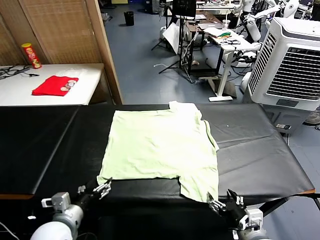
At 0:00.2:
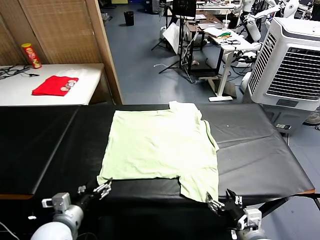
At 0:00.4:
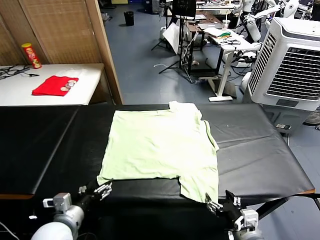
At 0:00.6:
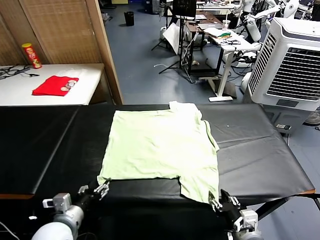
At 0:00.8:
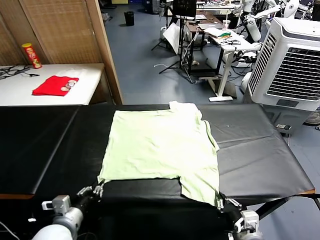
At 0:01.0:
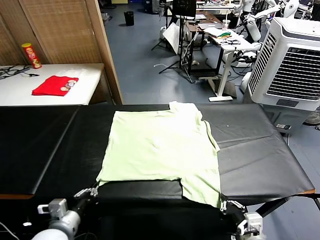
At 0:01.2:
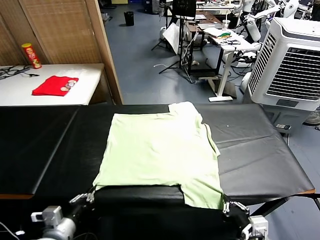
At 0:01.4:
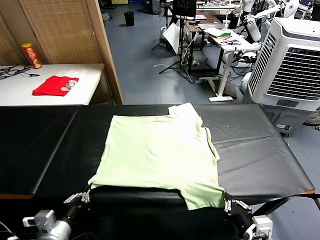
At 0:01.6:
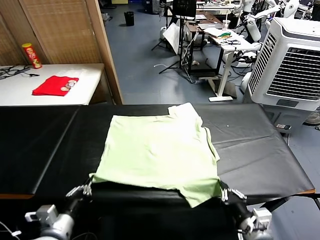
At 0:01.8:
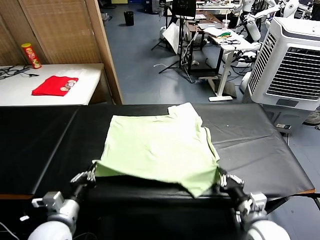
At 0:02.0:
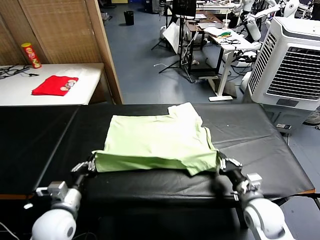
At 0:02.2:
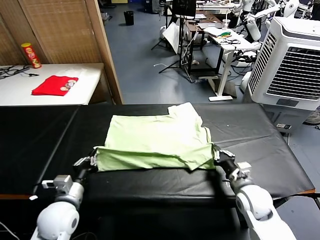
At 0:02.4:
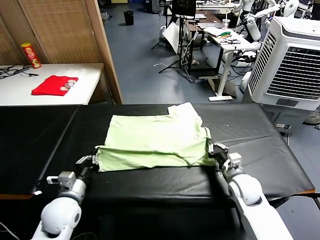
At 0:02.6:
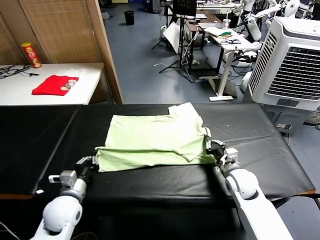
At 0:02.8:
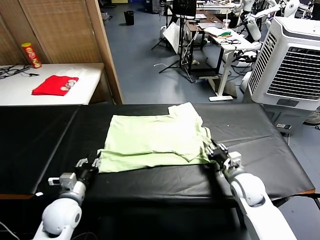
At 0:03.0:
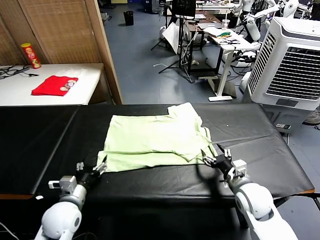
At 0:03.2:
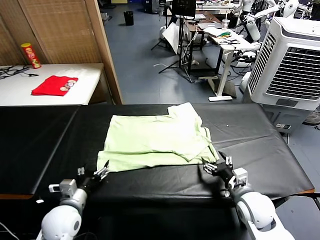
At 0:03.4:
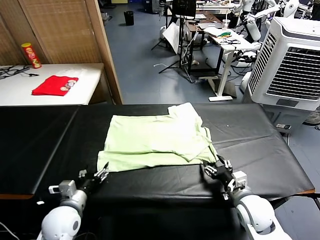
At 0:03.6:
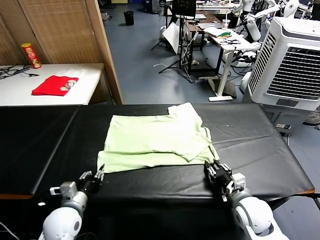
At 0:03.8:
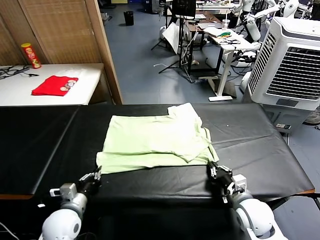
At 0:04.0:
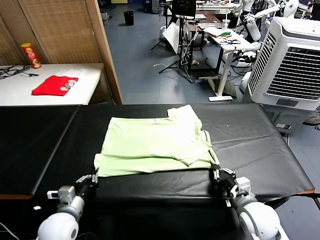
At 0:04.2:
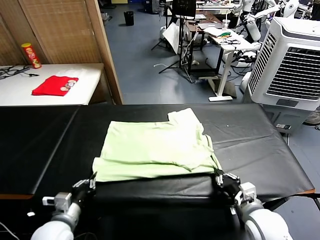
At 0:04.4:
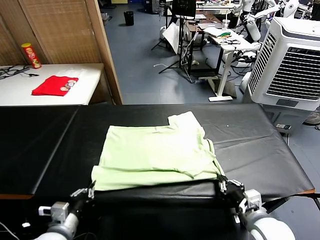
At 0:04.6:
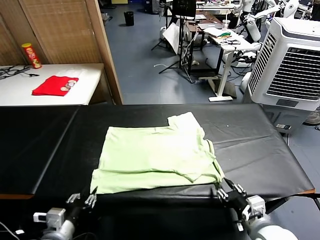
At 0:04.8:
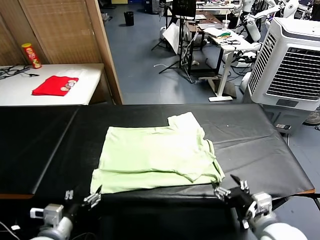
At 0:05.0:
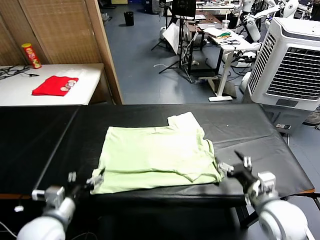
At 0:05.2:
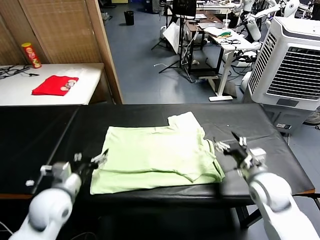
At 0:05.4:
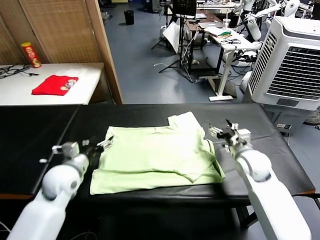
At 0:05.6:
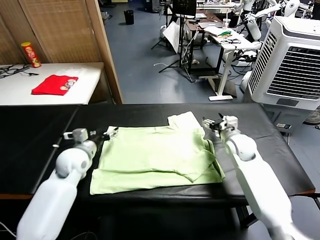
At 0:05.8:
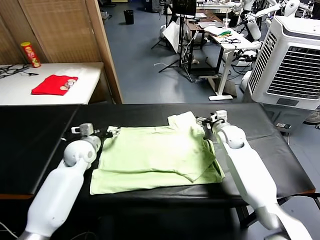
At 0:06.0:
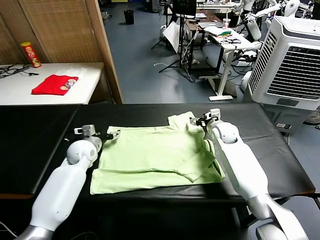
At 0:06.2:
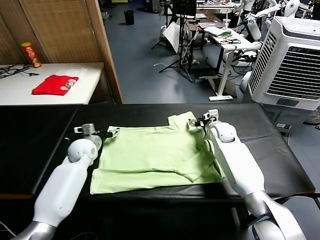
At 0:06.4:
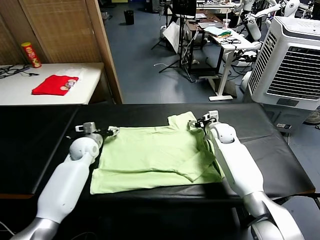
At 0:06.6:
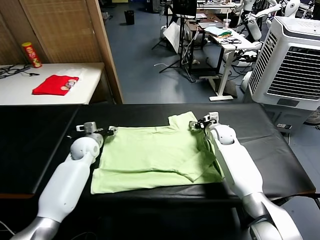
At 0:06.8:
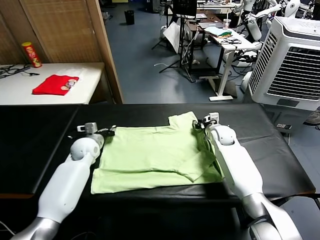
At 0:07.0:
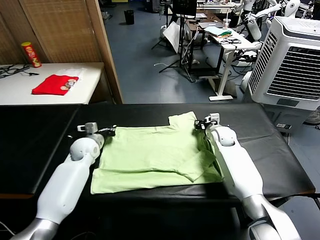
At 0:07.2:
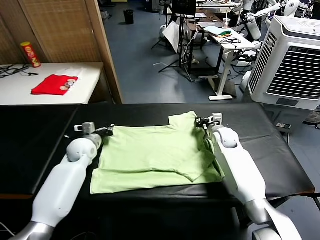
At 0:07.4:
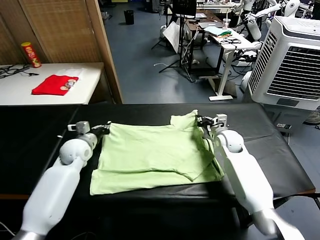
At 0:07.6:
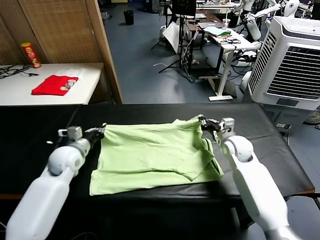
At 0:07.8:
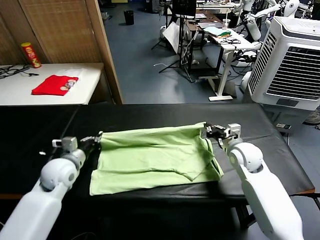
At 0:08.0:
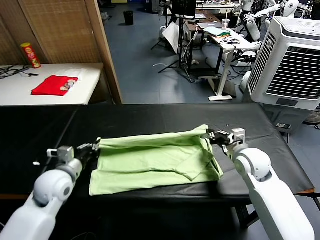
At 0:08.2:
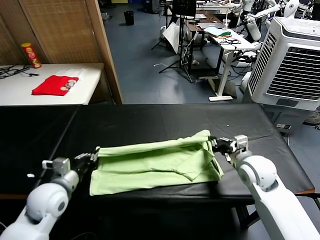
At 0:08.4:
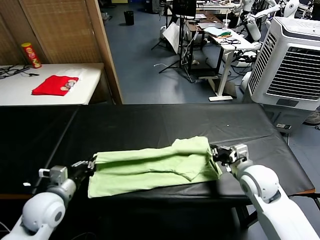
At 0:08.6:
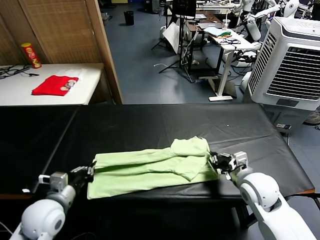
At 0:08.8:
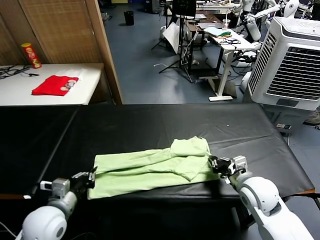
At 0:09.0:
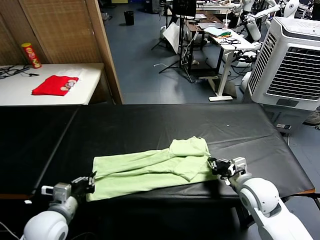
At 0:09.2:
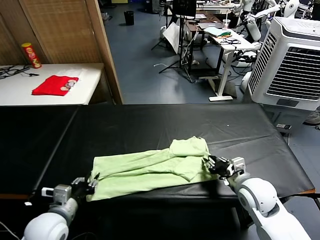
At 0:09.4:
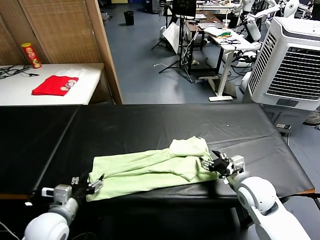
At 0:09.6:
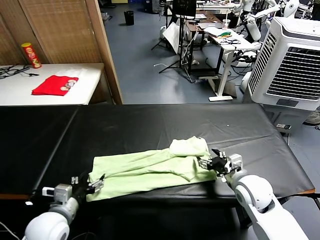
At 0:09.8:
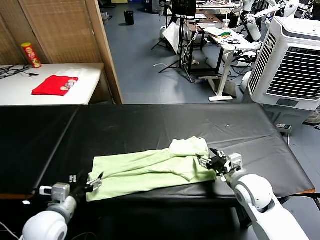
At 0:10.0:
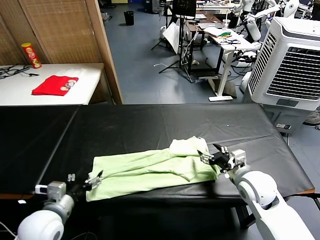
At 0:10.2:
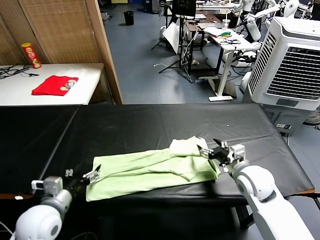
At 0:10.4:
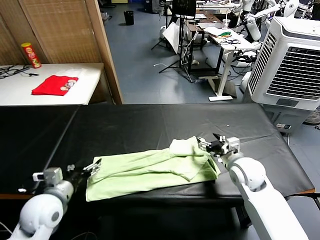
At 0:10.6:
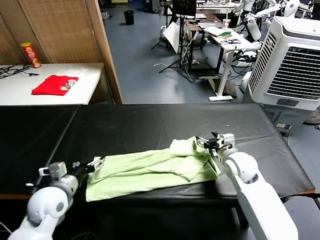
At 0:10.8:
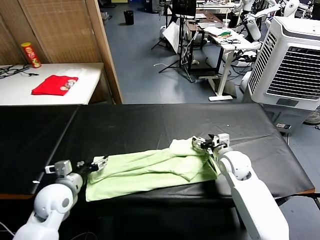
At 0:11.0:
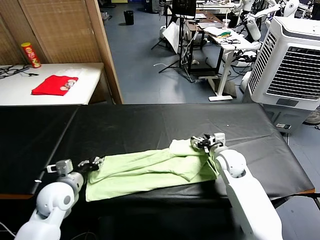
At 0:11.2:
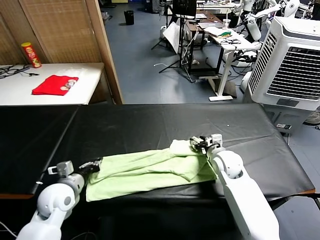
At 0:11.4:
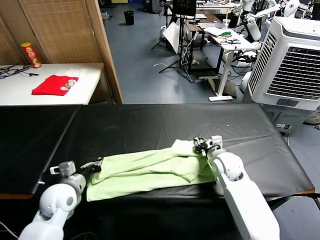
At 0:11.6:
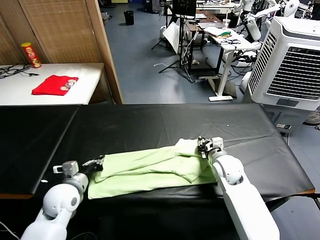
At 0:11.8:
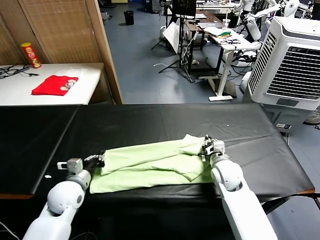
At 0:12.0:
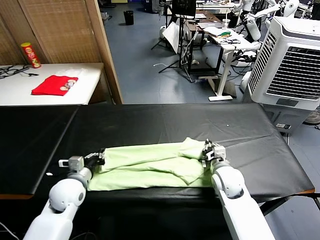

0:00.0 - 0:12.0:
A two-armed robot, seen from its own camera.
Task of the whole recording: fold and organize the clothes.
Step, 0:00.0 - 0:01.0: use both grippers simultaneously to clamp the lower edge of the clothing fabric.
Step, 0:01.2 - 0:02.8: use both grippers to drag the lower edge of the fabric forward and fold it over the upper edge.
Step, 0:03.0 - 0:04.6: Drag the clothes downward with both gripper.
Step, 0:04.8 - 0:06.8: use both grippers simultaneously to clamp the upper edge of the clothing fabric.
Step, 0:07.0 - 0:09.8: use both grippers to drag the upper edge of the fabric backward and fold it over the lower edge.
0:01.6 - 0:03.0: The left gripper is displaced forward by approximately 5 cm, and opens up; the right gripper goes forward and returns, some 15 cm each way, and opens up.
0:03.0 - 0:04.4: The right gripper heads backward and upward, covering approximately 10 cm, and closes, then reopens; the left gripper is displaced backward by about 10 cm, and closes its fingers.
0:04.4 - 0:06.0: The two grippers go approximately 35 cm forward. The left gripper opens.
0:06.0 - 0:07.6: Both grippers travel together backward, roughly 10 cm. The right gripper closes, while the left gripper closes up.
0:07.6 - 0:09.0: Both grippers move backward, about 15 cm.
0:09.0 - 0:10.4: The right gripper heads forward, covering about 10 cm, and opens its fingers. Meanwhile the left gripper shifts roughly 5 cm forward, and opens up.
0:10.4 - 0:12.0: The right gripper moves about 5 cm, and closes. Meanwhile the left gripper goes roughly 5 cm forward, and closes its fingers.

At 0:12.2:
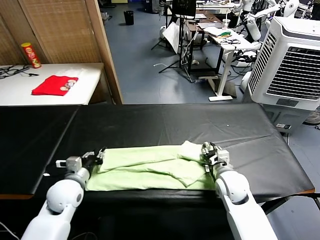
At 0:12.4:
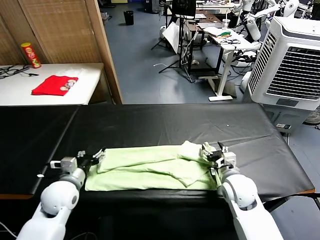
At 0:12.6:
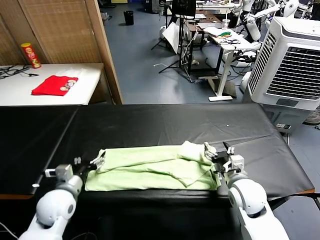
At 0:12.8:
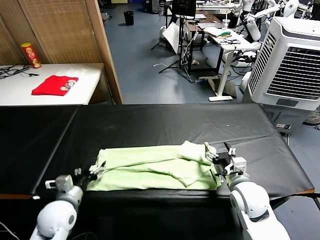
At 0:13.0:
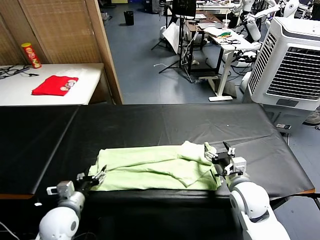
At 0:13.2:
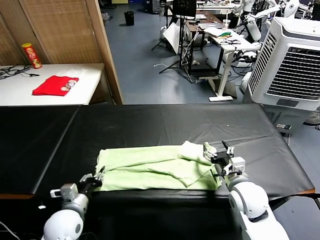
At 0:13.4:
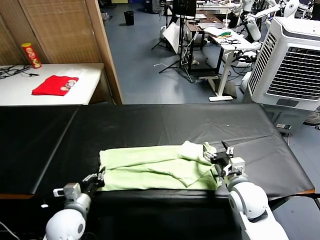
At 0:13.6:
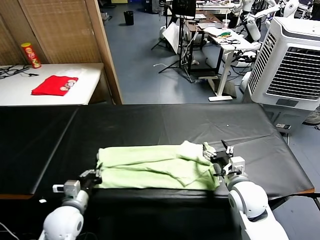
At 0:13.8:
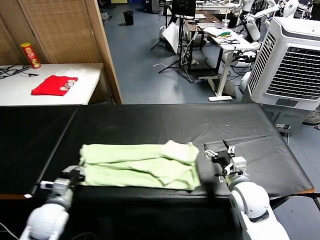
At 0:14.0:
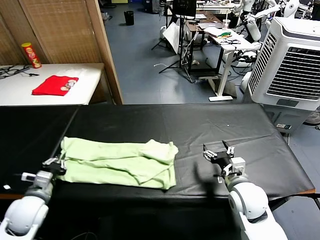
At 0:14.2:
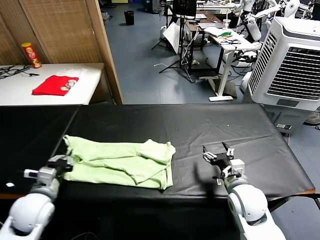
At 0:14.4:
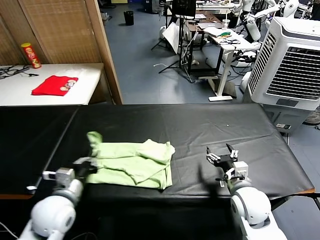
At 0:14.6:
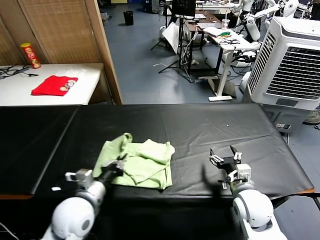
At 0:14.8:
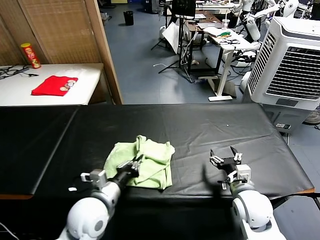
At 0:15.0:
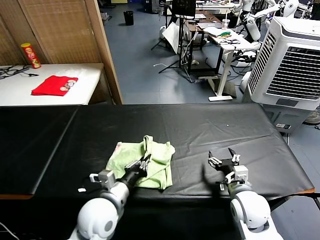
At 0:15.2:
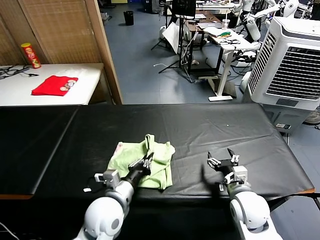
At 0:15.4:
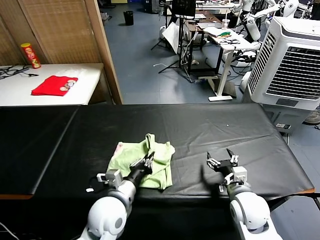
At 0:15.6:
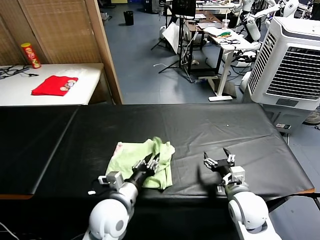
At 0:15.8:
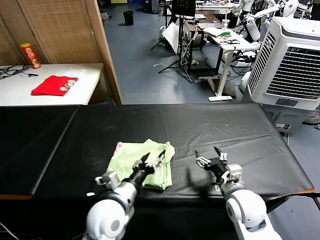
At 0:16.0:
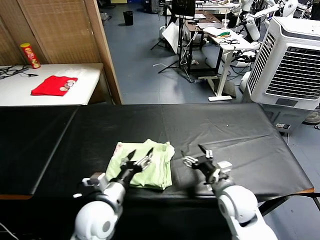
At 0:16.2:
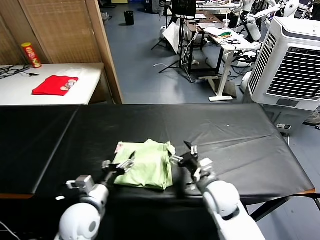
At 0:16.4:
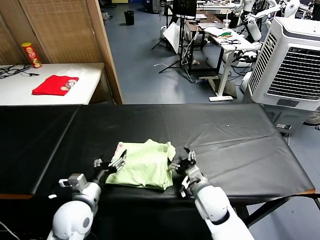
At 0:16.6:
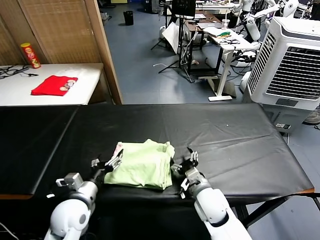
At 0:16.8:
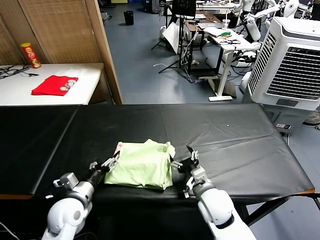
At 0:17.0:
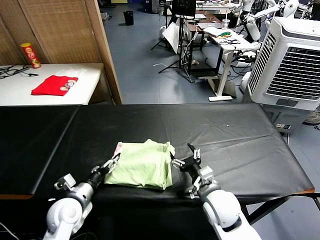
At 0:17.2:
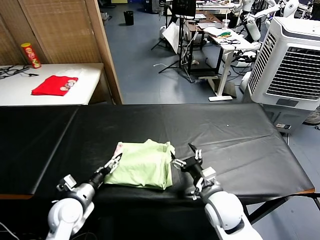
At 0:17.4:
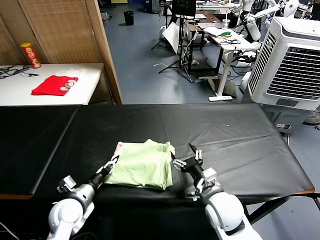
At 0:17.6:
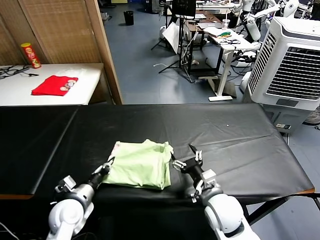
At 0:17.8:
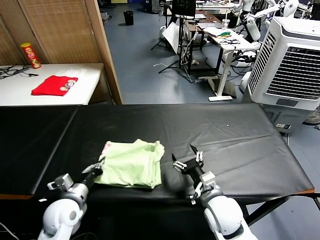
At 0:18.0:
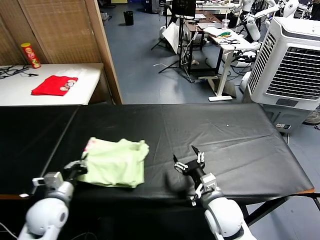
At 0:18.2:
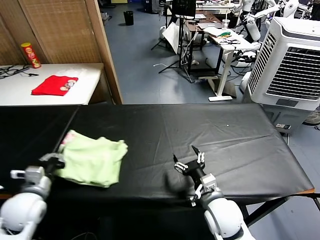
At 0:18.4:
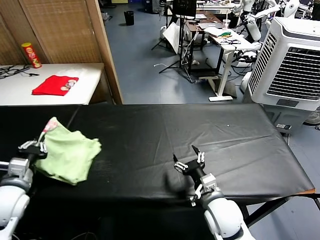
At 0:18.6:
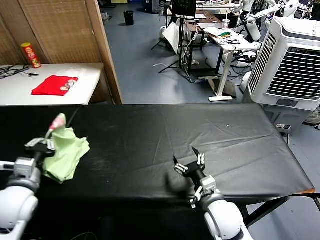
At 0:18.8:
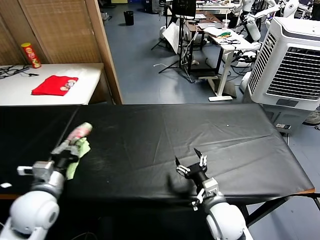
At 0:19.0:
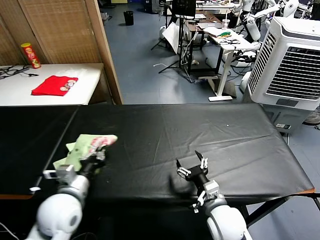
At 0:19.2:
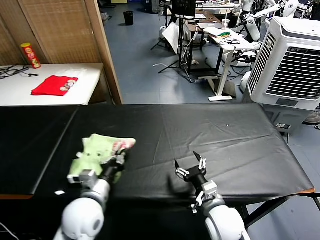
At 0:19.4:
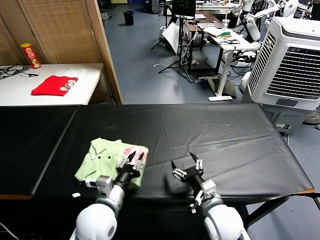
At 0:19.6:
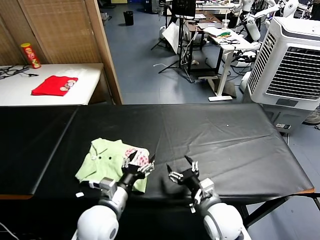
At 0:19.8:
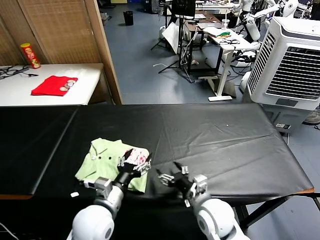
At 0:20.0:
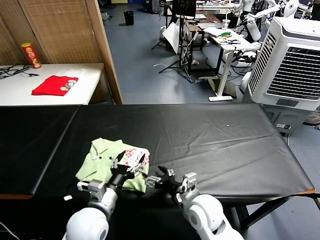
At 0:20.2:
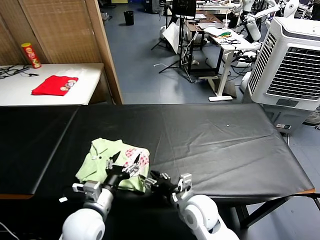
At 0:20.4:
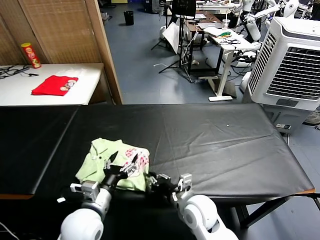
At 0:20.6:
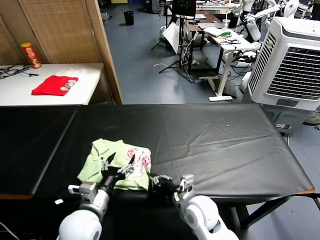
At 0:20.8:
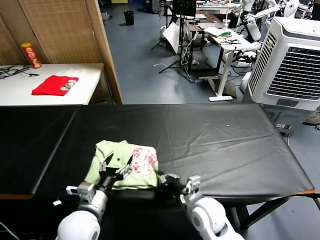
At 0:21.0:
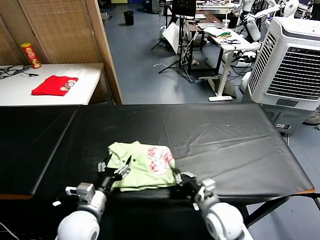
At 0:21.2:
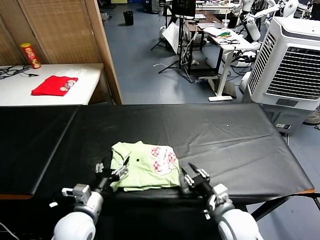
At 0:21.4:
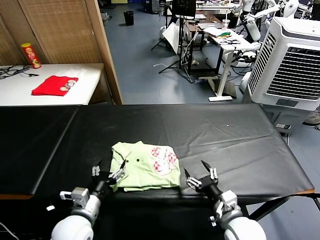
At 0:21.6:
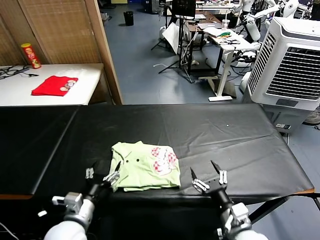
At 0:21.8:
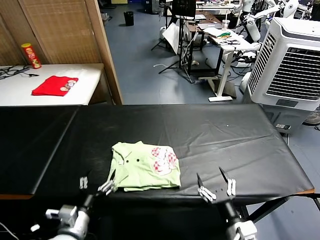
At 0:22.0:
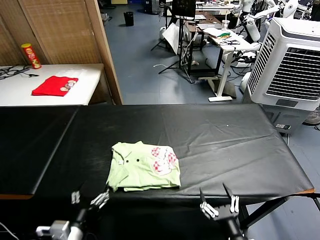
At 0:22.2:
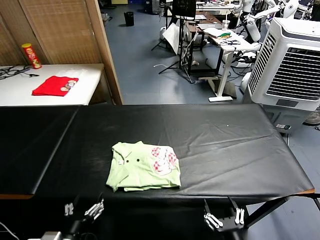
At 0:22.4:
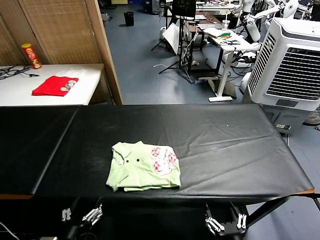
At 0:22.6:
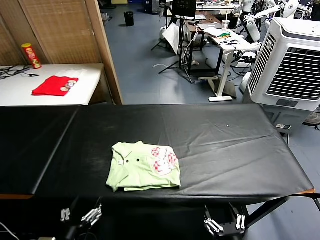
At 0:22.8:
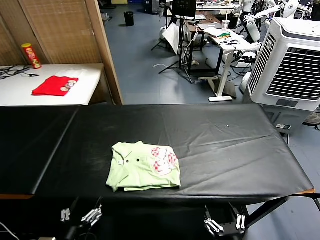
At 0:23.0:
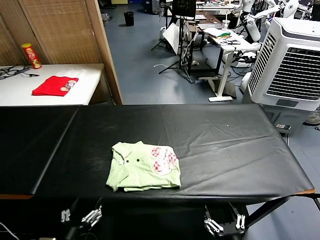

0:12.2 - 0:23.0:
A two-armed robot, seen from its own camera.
Task of the whole recording: fold and organize the clothes.
Step, 0:13.4 - 0:15.6: use the left gripper to drag the left edge of the fabric to the left and folds it over the right edge.
Step, 0:16.0 - 0:19.4: Flip the folded clothes over with left gripper.
Step, 0:19.6 - 0:21.2: Drag the clothes to the center of the table.
0:12.2 - 0:13.8: The left gripper shifts roughly 5 cm backward, and closes up. The right gripper changes place by approximately 5 cm.
0:13.8 - 0:15.2: The left gripper travels to the right by approximately 20 cm.
0:15.2 - 0:16.8: The right gripper shifts about 10 cm to the left, while the left gripper shifts approximately 15 cm to the left, and opens up.
0:16.8 - 0:18.4: The left gripper heads to the left and upward, covering roughly 15 cm, and closes up.
0:18.4 - 0:20.0: The left gripper heads to the right, covering approximately 20 cm, and opens up.
0:20.0 - 0:21.4: The left gripper ends up approximately 5 cm from where it was. Meanwhile the right gripper goes roughly 10 cm to the right and backward, and closes, then reopens.
0:21.4 - 0:23.0: The two grippers go about 15 cm backward.
